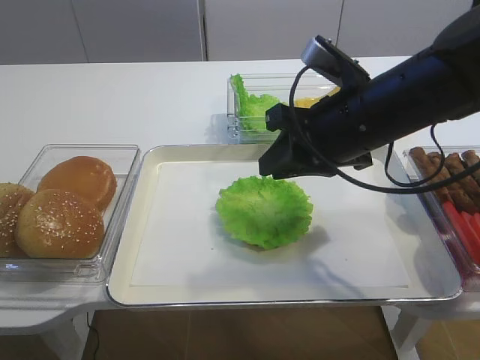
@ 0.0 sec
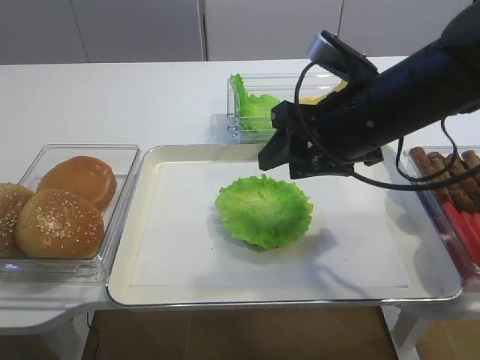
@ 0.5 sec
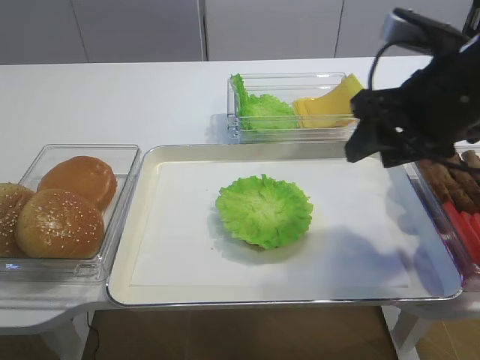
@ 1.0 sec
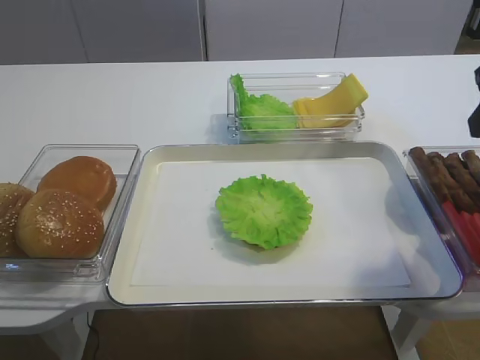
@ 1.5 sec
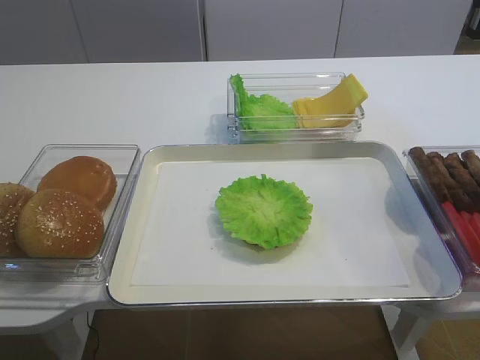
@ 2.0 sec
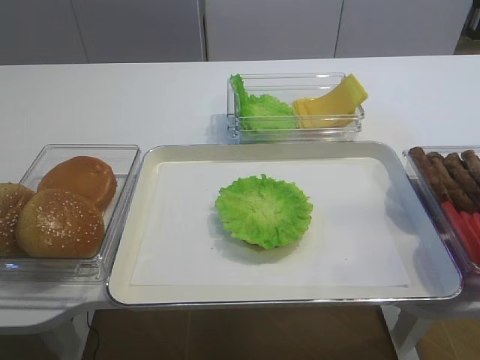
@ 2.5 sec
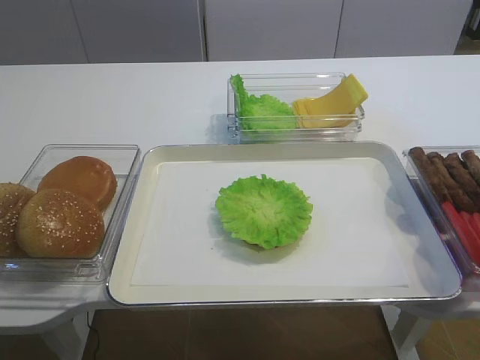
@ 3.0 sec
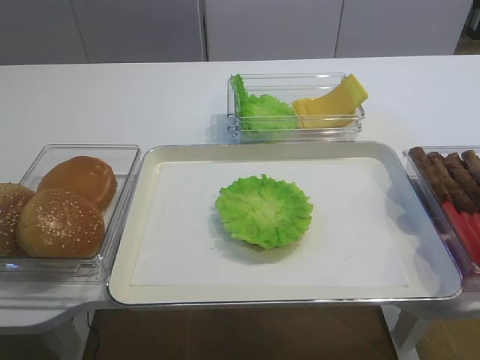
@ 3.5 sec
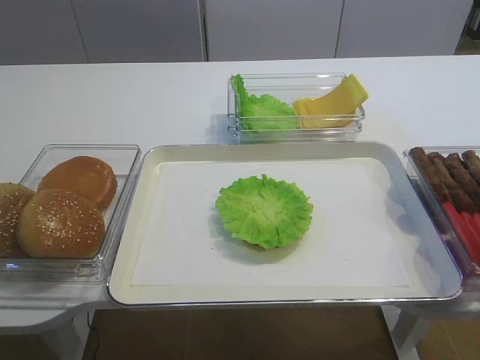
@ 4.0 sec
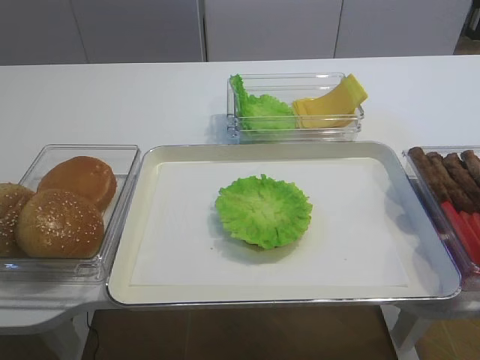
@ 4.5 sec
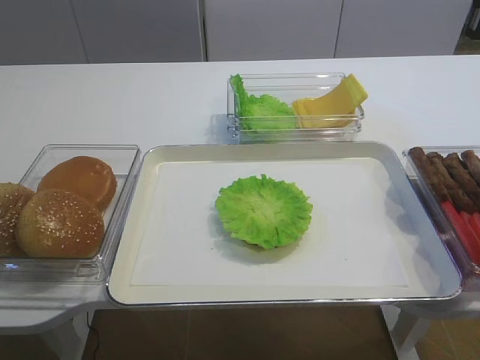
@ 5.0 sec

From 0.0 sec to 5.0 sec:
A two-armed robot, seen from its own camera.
From 0.0 sec to 2.5 sec: The right gripper moves backward, to the right and upward, roughly 30 cm, and opens its fingers.

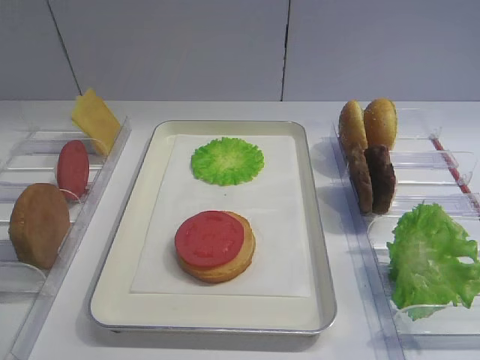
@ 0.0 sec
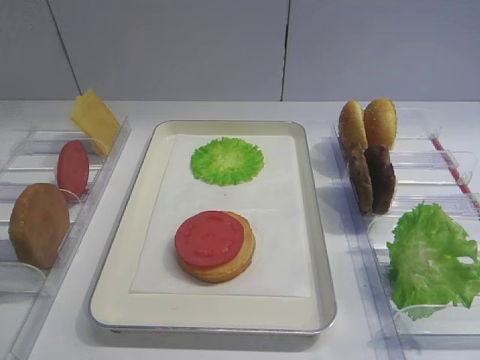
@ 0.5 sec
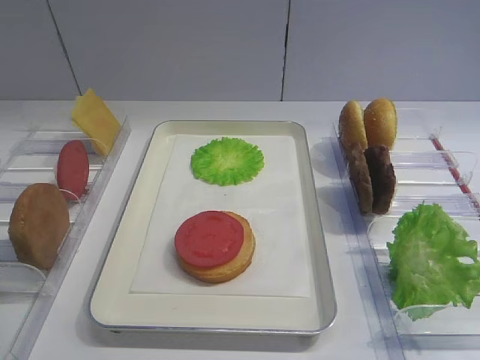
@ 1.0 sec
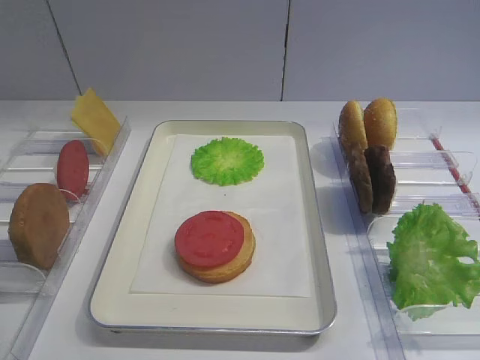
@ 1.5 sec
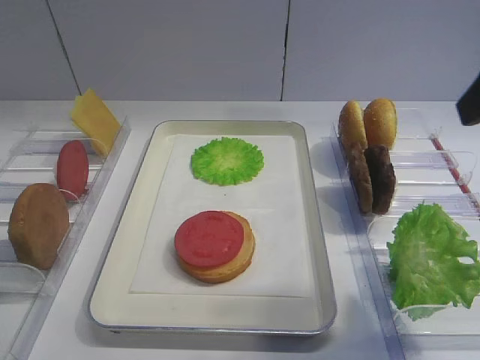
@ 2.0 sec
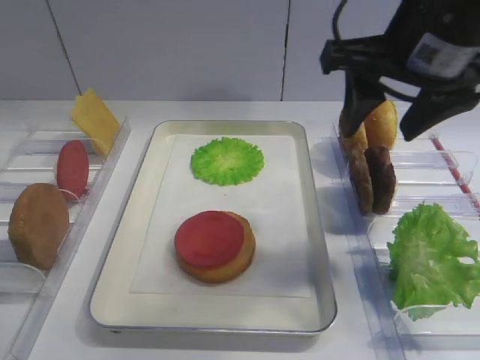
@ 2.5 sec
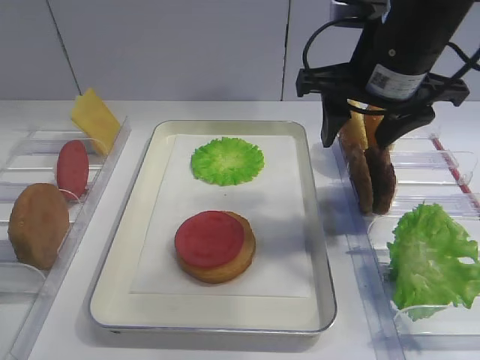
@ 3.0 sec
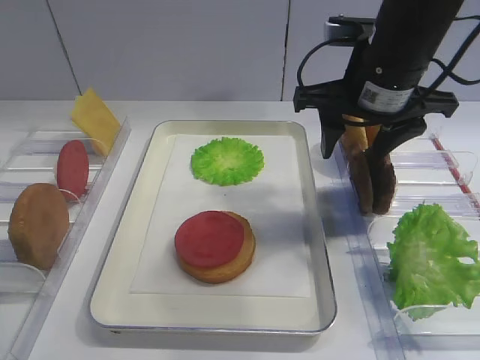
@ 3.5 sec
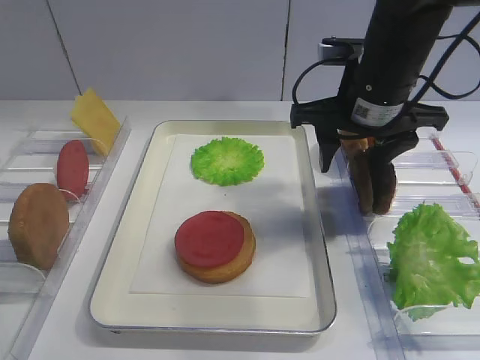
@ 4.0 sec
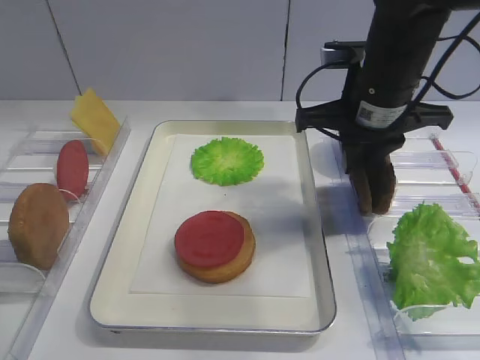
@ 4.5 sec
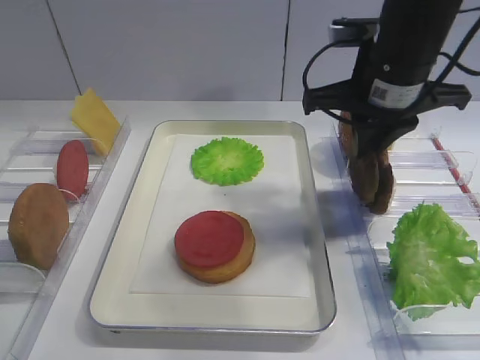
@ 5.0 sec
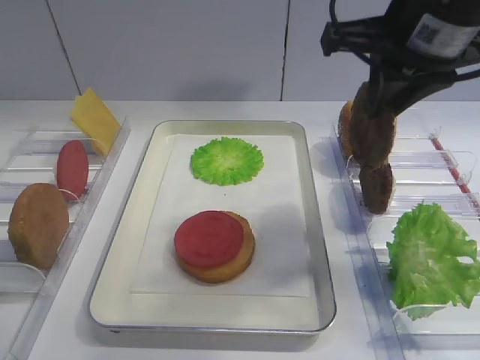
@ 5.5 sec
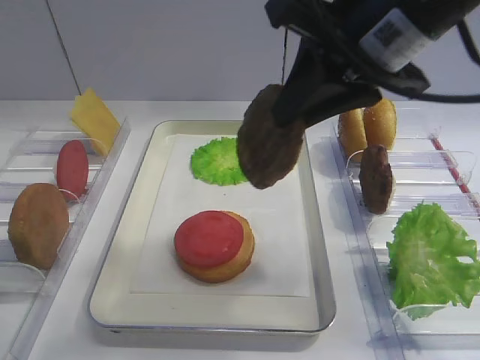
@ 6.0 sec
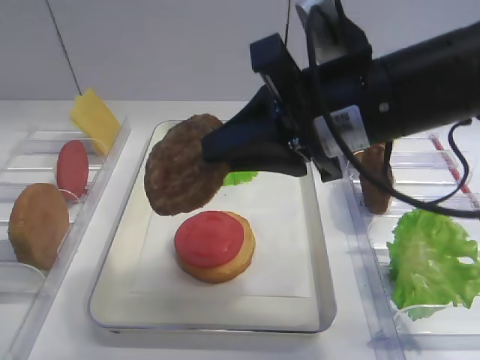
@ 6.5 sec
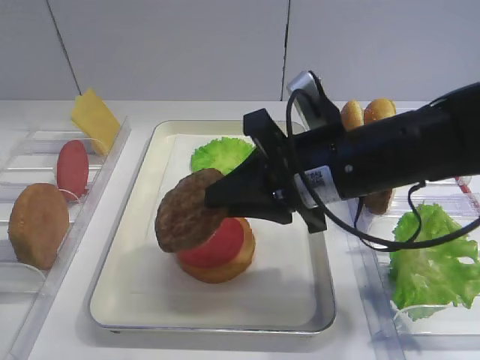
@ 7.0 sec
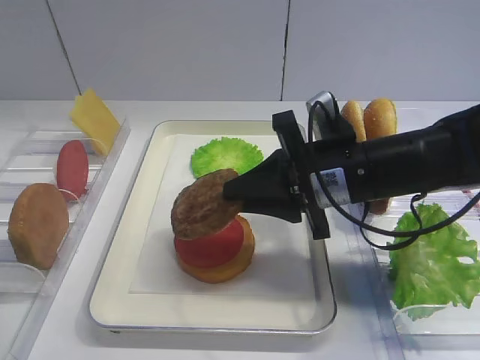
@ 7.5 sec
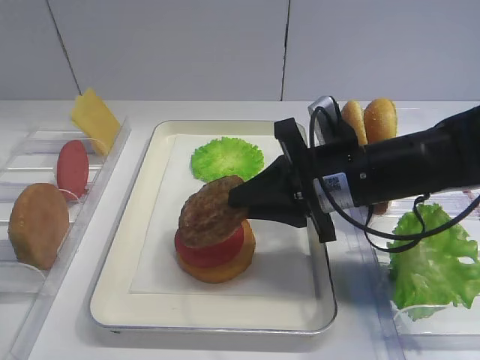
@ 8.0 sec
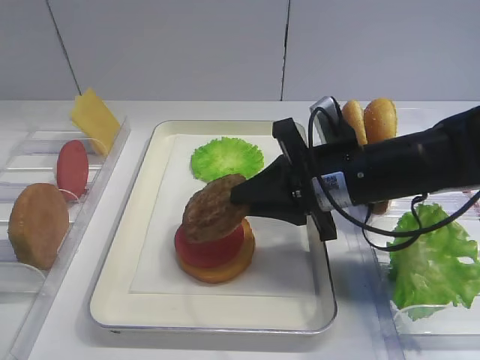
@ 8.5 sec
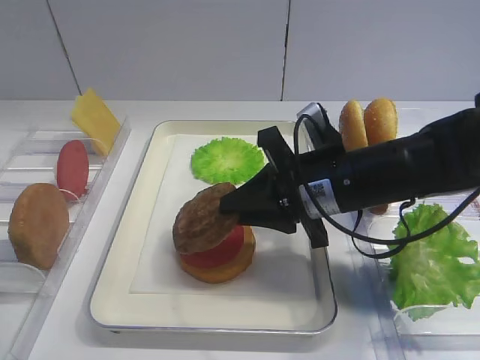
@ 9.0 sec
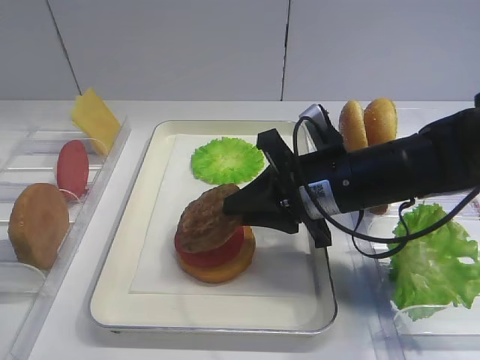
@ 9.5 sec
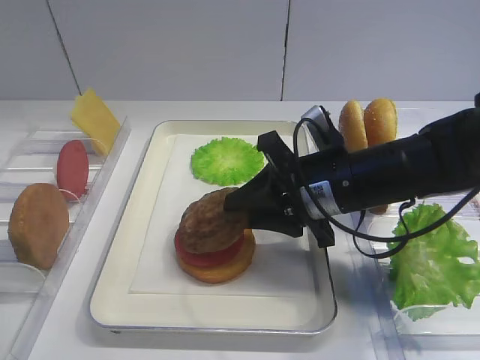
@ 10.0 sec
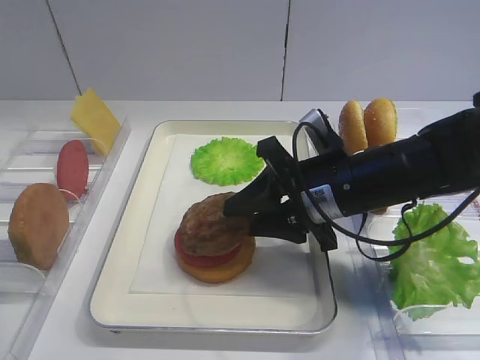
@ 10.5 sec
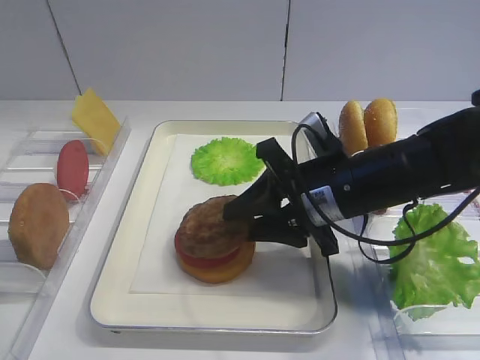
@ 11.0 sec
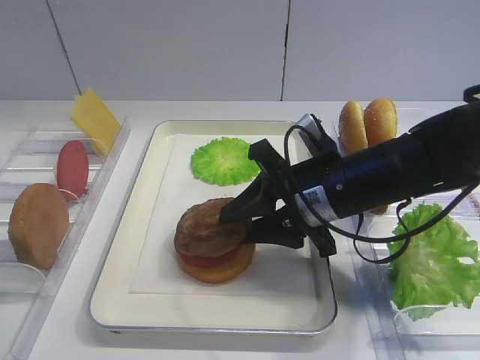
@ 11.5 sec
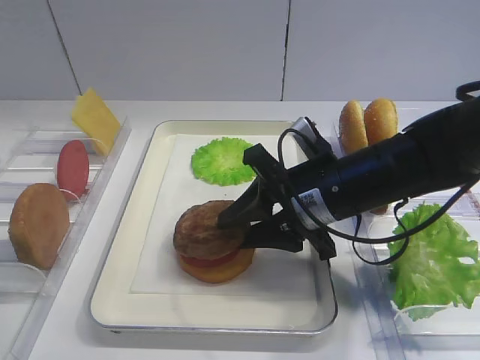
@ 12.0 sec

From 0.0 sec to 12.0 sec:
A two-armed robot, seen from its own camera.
Step, from 0.0 sec to 5.5 sec: Pick up the cutlet with the right gripper.
From 2.0 sec to 4.0 sec: The right gripper heads forward, downward and to the left, covering about 20 cm.
From 4.0 sec to 6.0 sec: The right gripper is displaced upward and backward by roughly 15 cm, and closes its fingers.
From 6.0 sec to 8.0 sec: The right gripper is displaced downward by roughly 15 cm.
From 8.0 sec to 12.0 sec: There are only small adjustments of the grippers.

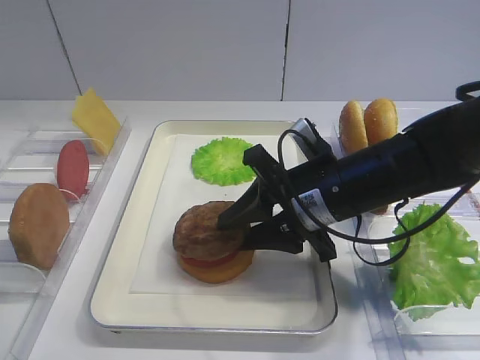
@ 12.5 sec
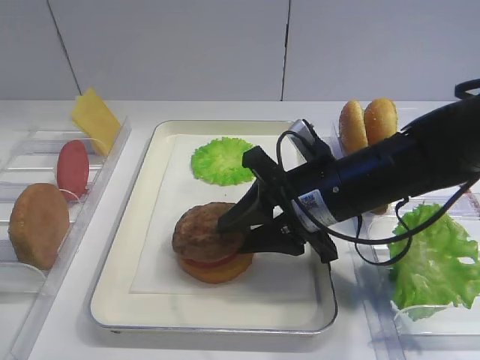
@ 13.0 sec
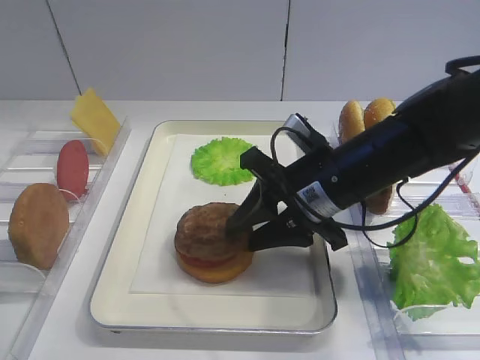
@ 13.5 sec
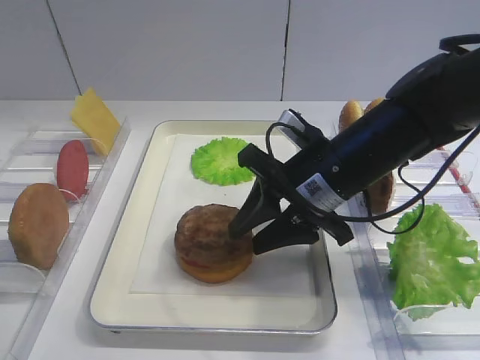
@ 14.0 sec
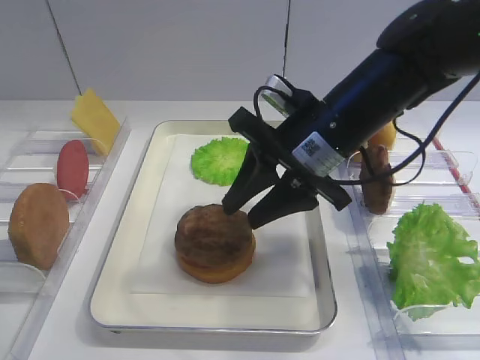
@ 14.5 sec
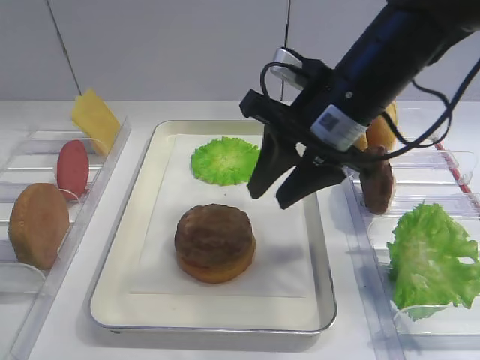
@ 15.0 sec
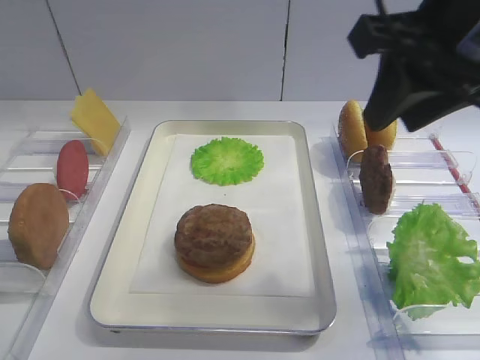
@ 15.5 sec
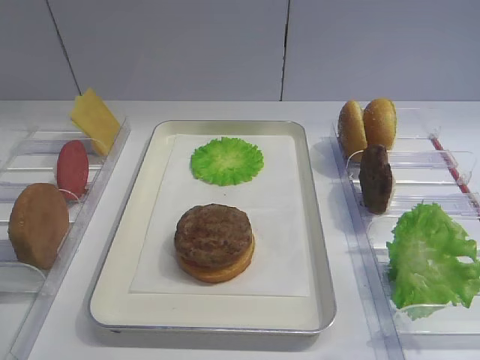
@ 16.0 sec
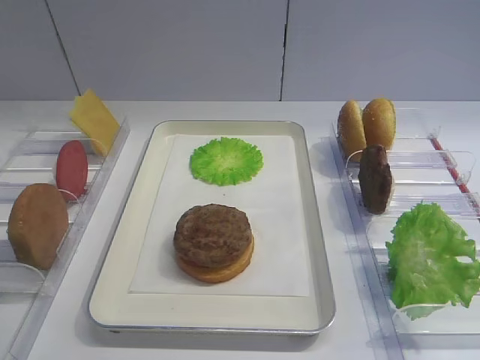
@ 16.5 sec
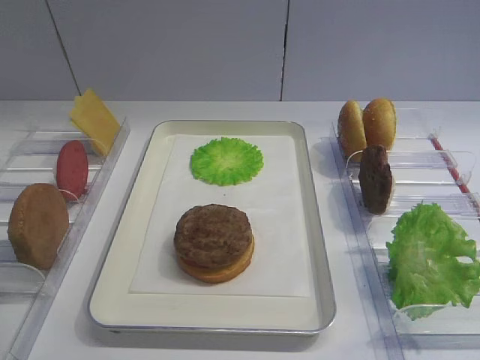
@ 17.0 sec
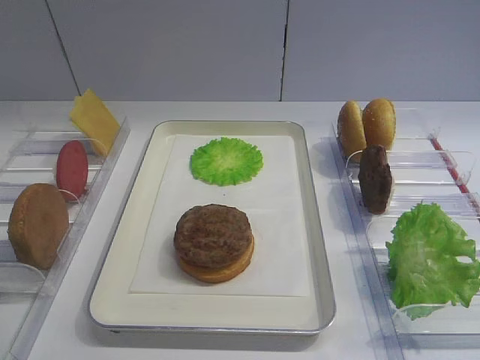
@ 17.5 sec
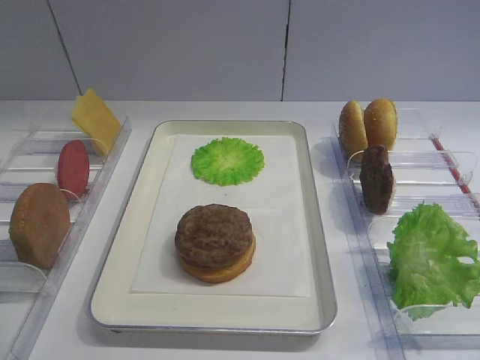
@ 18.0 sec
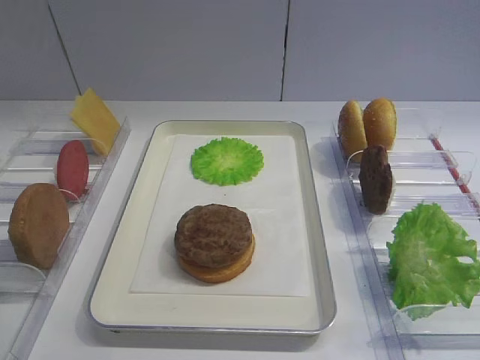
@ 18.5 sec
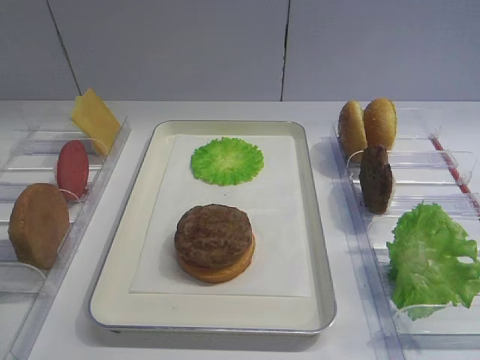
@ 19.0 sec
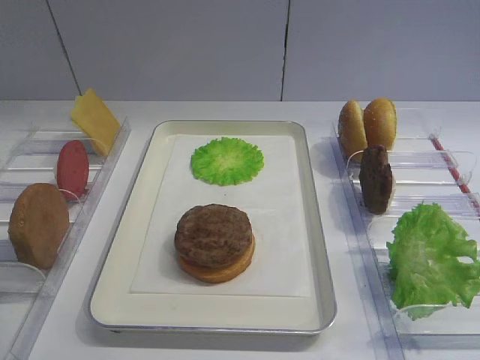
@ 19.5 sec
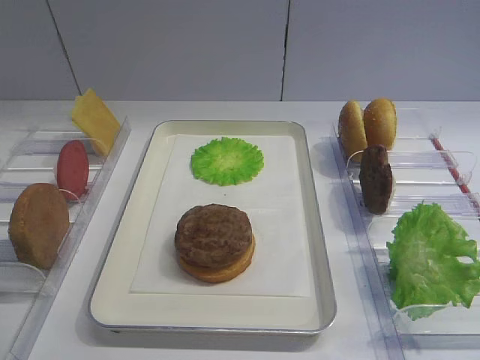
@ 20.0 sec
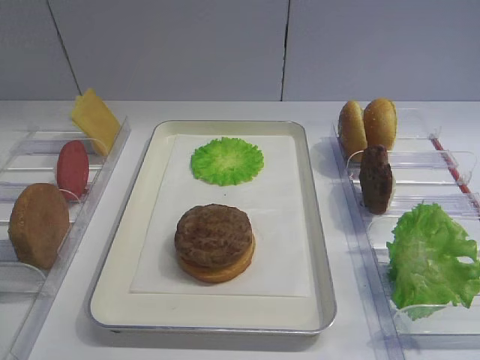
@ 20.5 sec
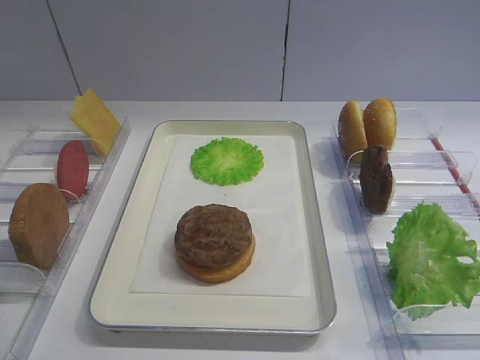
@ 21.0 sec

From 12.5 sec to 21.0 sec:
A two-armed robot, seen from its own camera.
From 12.5 sec to 14.5 sec: The right gripper moves upward, approximately 5 cm.
From 14.5 sec to 16.5 sec: The right gripper goes roughly 35 cm backward, to the right and upward.
From 16.5 sec to 19.0 sec: The right gripper shifts about 10 cm downward.
From 19.0 sec to 21.0 sec: The two grippers keep their place.
